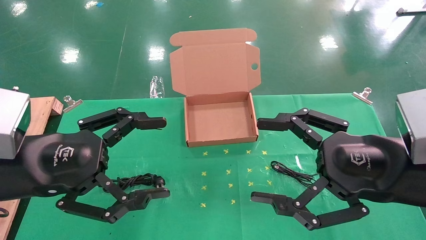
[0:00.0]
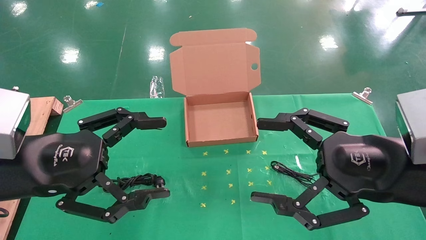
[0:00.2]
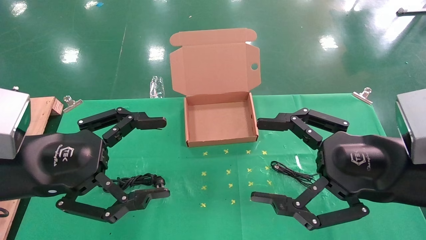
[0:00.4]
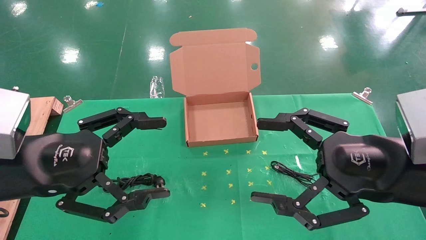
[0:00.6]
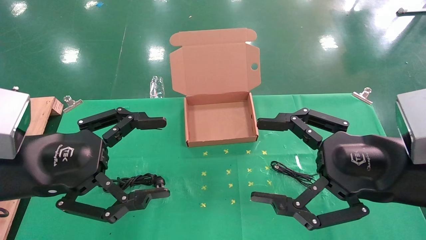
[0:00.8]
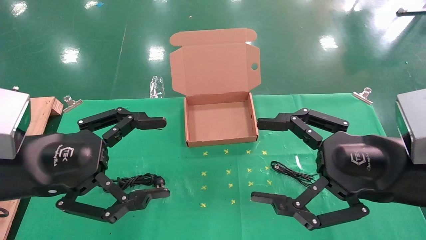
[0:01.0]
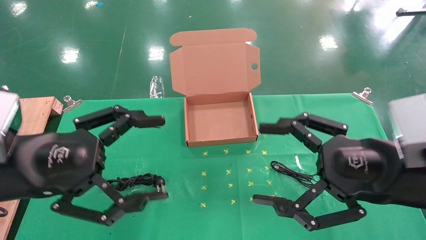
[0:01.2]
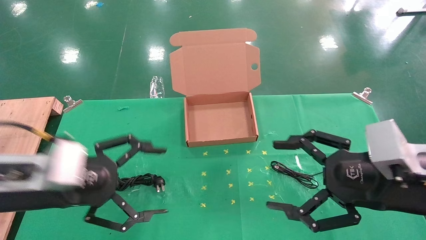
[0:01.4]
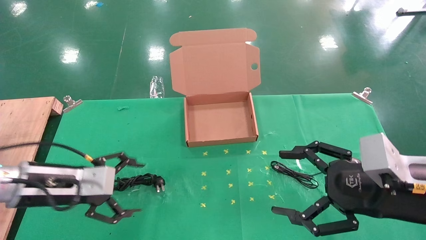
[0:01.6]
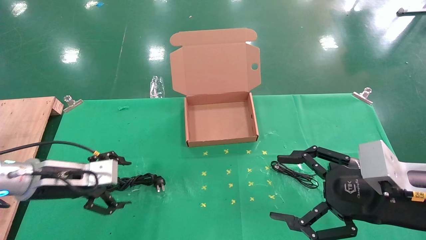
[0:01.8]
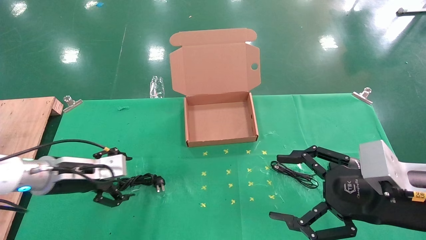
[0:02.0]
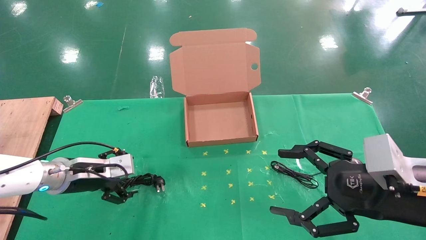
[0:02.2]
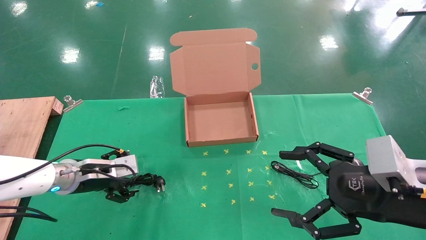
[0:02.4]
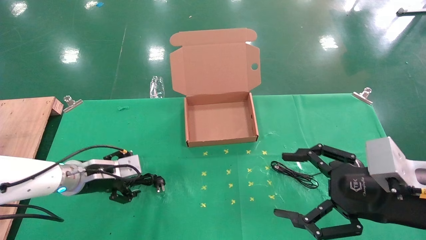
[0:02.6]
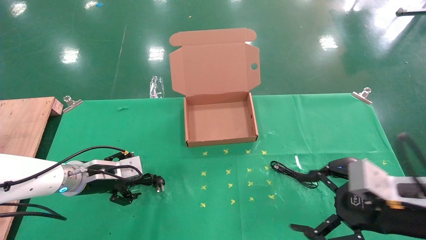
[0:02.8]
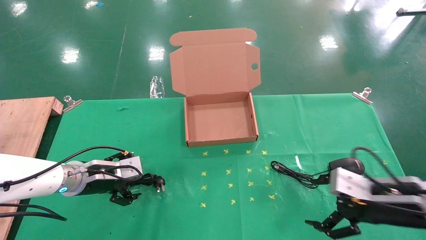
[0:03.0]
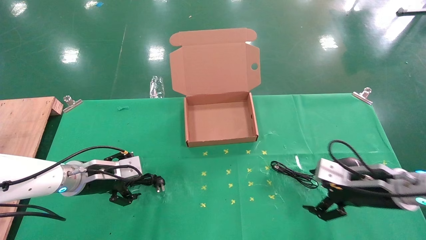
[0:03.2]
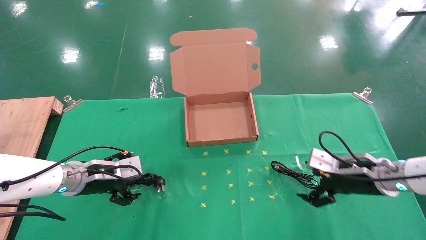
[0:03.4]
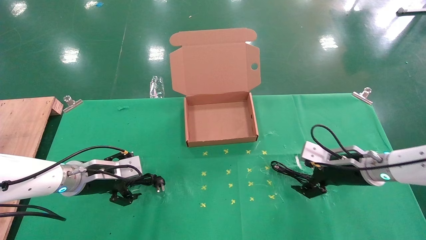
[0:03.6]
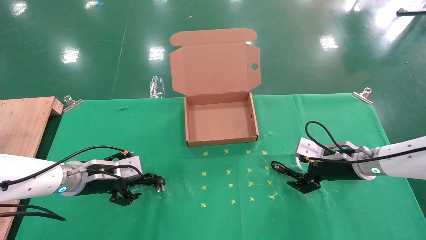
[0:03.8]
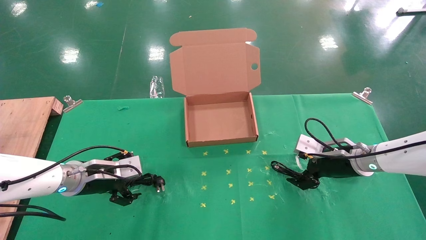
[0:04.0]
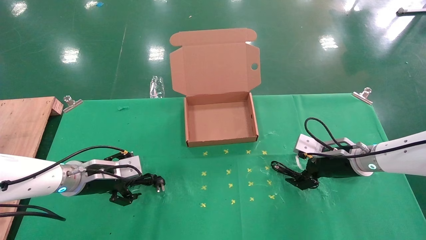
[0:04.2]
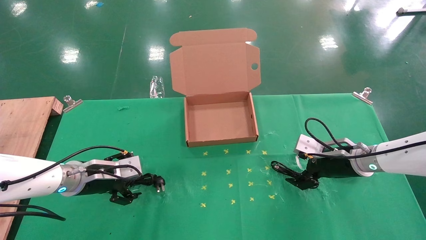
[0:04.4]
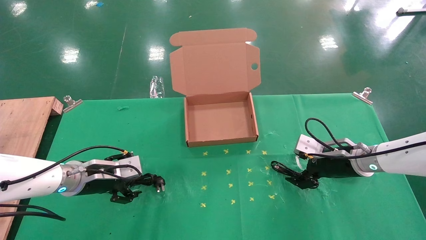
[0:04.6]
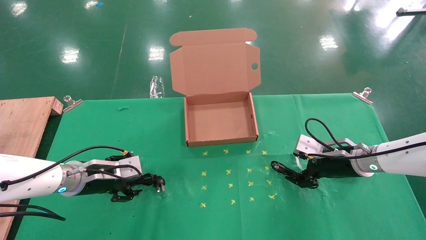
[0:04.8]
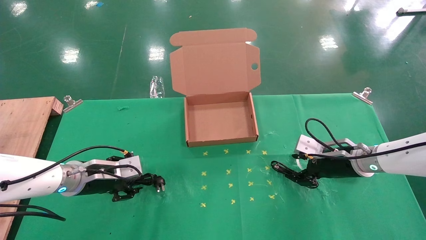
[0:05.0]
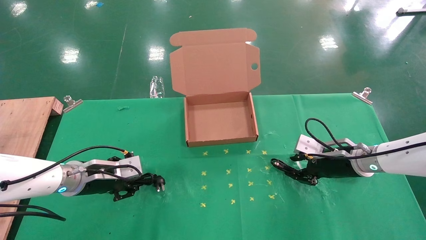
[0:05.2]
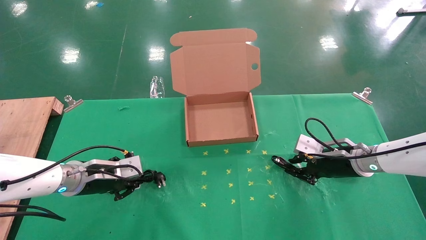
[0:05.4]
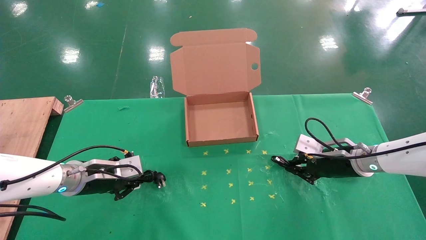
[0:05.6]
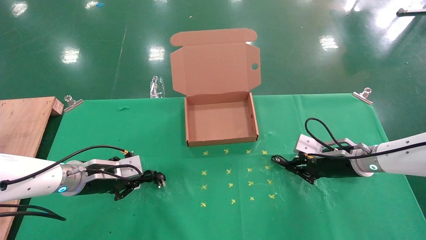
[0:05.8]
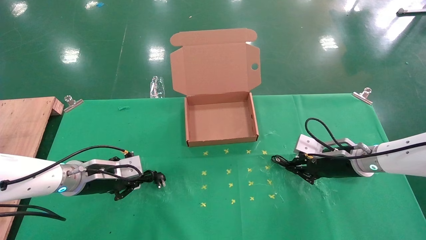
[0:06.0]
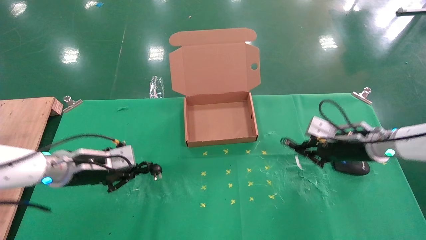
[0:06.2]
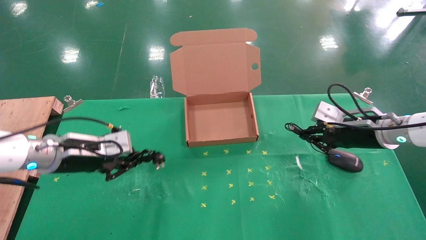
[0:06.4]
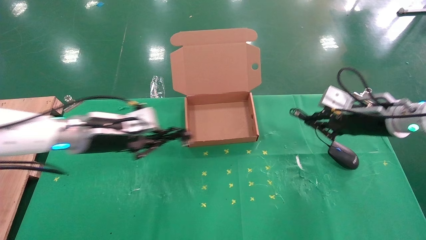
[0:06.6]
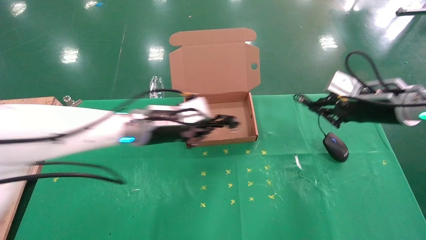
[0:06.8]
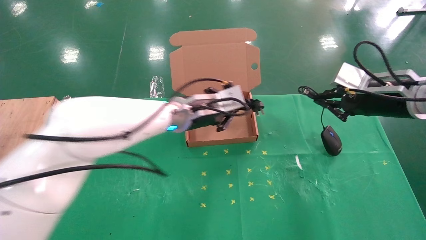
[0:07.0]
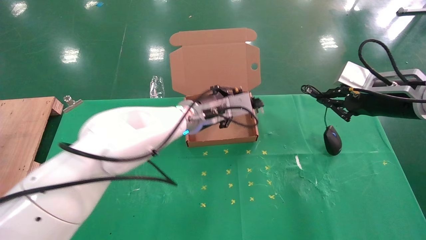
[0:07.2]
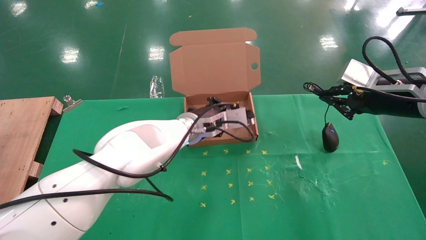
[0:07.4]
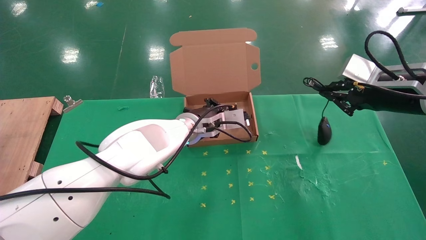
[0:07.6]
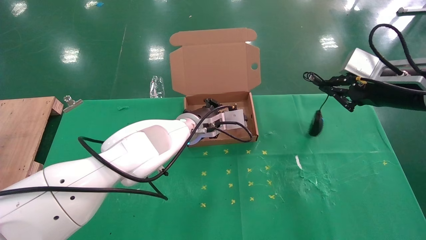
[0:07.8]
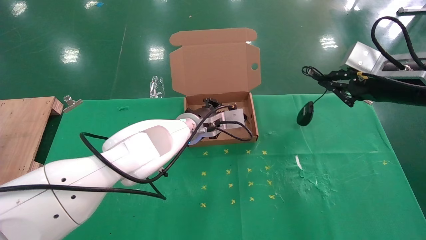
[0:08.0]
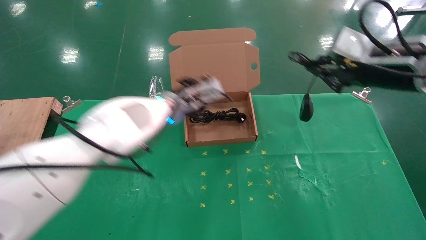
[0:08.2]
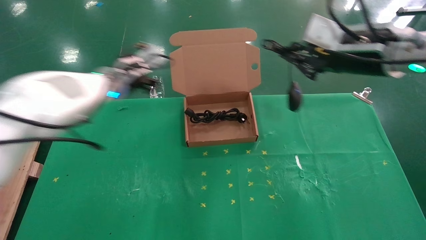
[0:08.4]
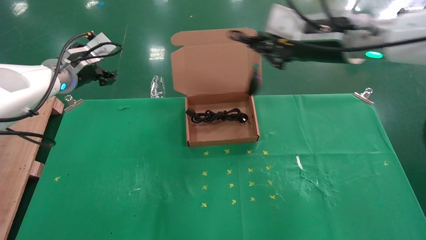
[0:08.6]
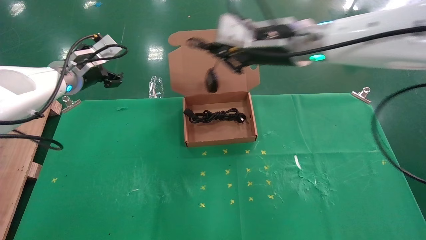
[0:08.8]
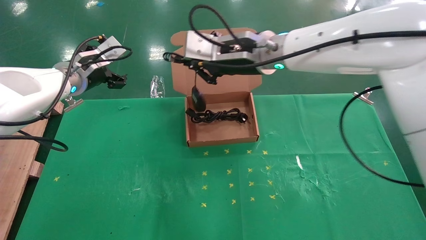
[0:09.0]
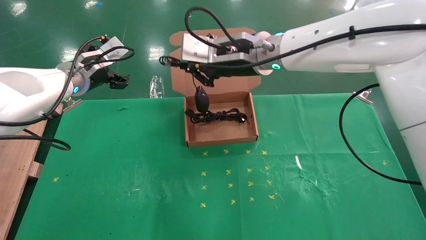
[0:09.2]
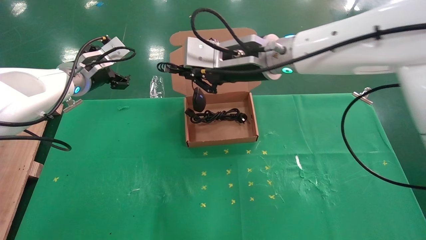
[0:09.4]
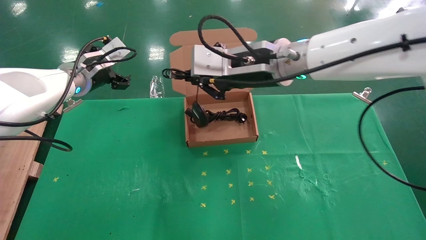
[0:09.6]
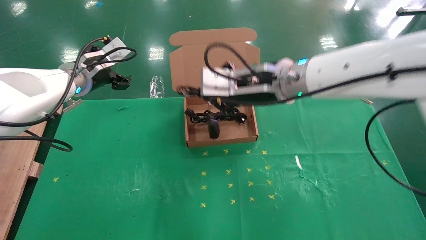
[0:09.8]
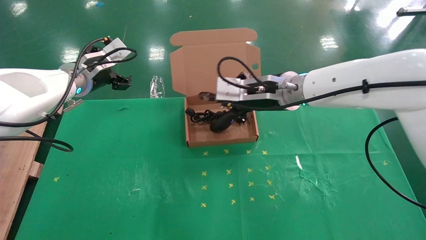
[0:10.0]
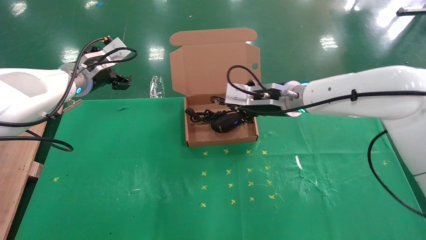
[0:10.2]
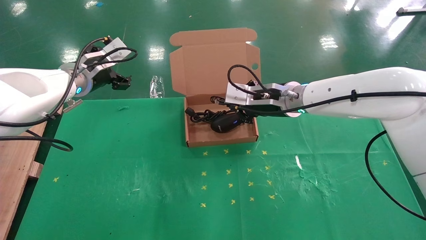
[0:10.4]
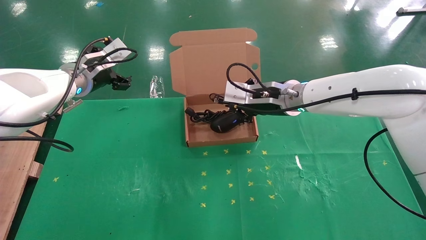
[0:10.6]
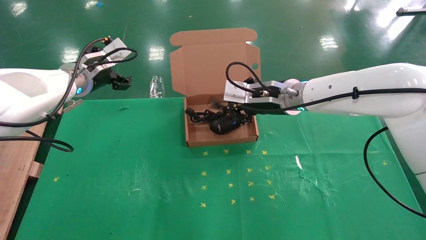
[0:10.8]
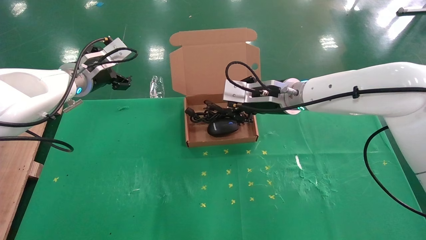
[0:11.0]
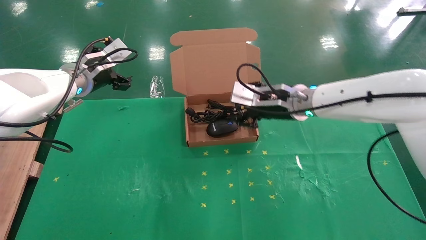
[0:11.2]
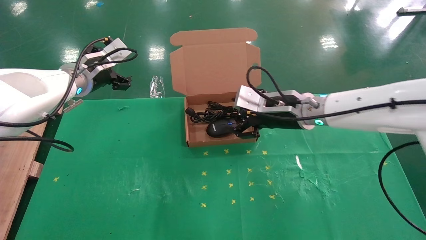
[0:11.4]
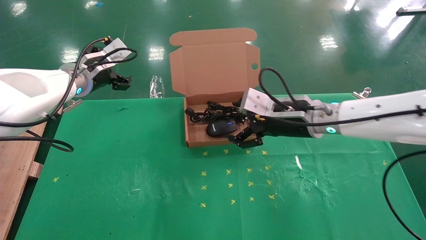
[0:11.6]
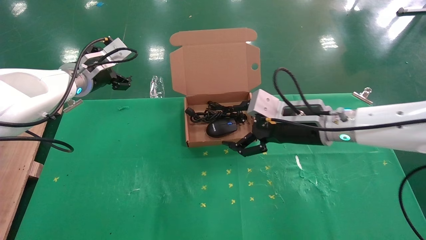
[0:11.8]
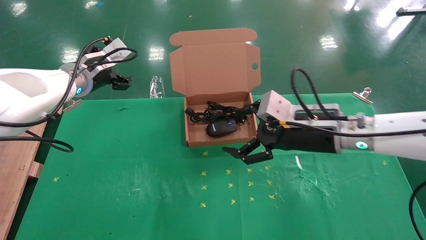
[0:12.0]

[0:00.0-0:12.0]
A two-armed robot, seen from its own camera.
Task of the whole recording: grasp data cable left put into box grasp mouse right put into box.
Step, 0:01.4 to 0:05.8: Simultaneously pick up the mouse and power cord from the accessory packaging area.
Step, 0:06.0 to 0:10.8: Place the mouse and power cord into the box.
0:00.0 to 0:01.6: The left gripper shifts approximately 10 cm downward and forward. Meanwhile the right gripper moves approximately 5 cm.
0:01.6 to 0:03.0: The left gripper travels forward and downward by about 10 cm. Meanwhile the right gripper goes approximately 10 cm downward and forward.
0:03.0 to 0:04.4: The right gripper heads forward, covering some 15 cm.
0:04.4 to 0:06.0: The right gripper closes up, while the left gripper closes up.
0:06.0 to 0:07.6: The left gripper is displaced to the right by some 25 cm, while the right gripper travels upward by roughly 15 cm.
0:07.6 to 0:09.0: The right gripper goes approximately 25 cm to the left, while the left gripper heads to the left and upward, covering roughly 25 cm, and opens up.
0:09.0 to 0:10.4: The right gripper is displaced downward by some 10 cm.
0:10.4 to 0:12.0: The right gripper is displaced backward and to the right by about 10 cm, and opens.

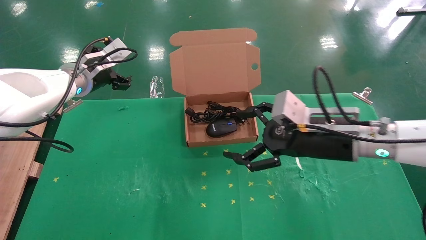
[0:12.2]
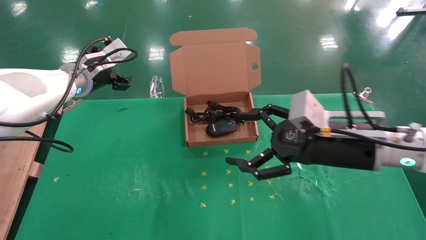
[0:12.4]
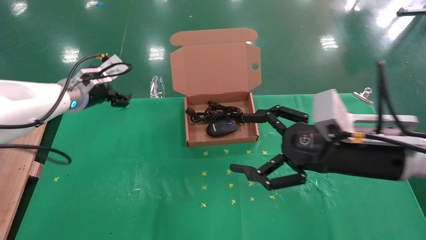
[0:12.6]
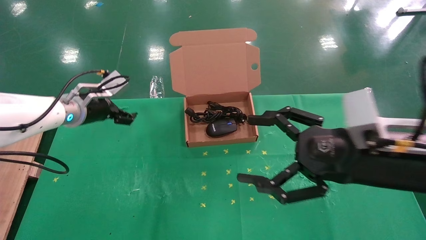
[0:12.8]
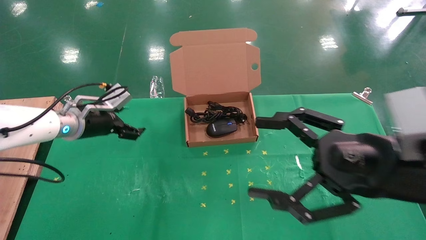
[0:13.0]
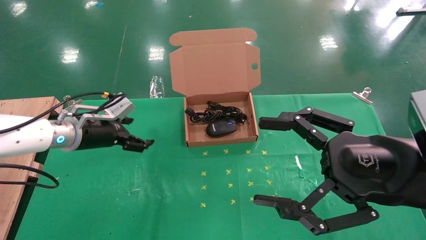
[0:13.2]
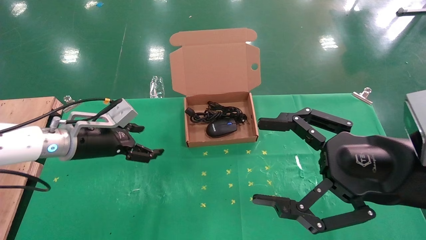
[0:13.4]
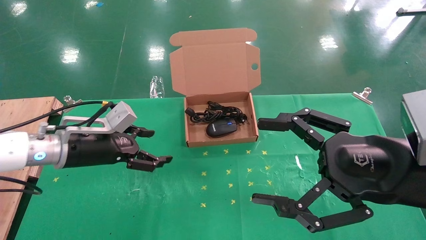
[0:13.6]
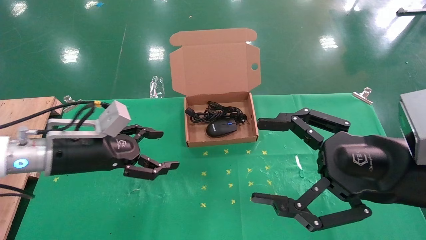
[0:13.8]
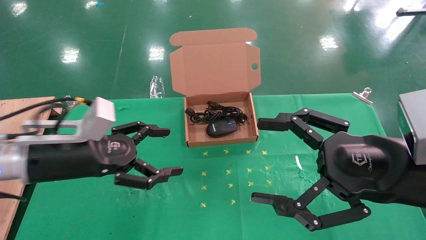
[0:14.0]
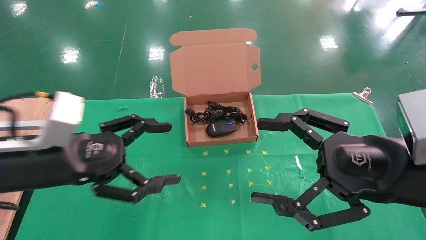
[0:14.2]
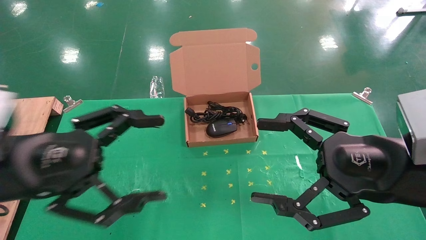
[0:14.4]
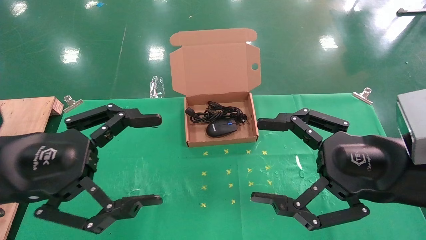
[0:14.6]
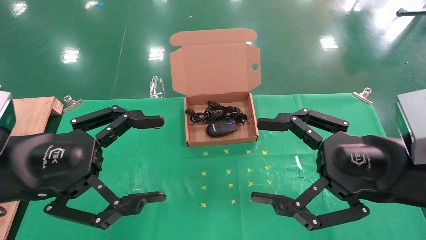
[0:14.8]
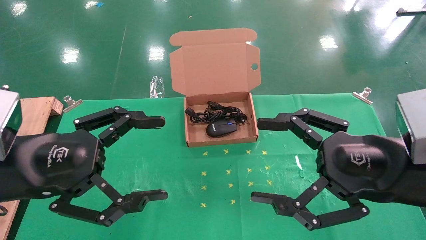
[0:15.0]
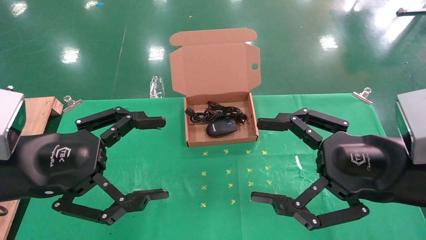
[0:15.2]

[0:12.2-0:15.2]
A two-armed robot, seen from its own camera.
Task of the whole recording: grasp data cable left put into box grasp mouse right put into box.
0:12.2 to 0:13.8: The left gripper goes about 15 cm backward and downward; the right gripper moves backward and to the right, some 15 cm.
0:13.8 to 0:15.2: The left gripper shifts approximately 10 cm backward and upward.
